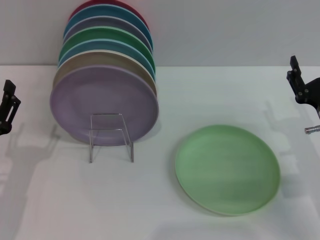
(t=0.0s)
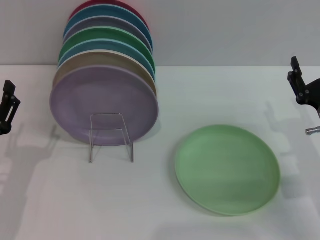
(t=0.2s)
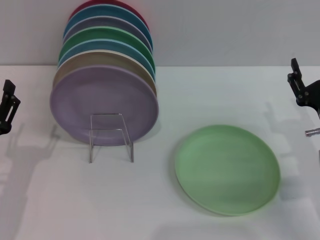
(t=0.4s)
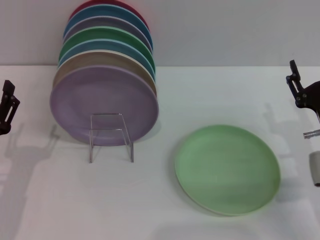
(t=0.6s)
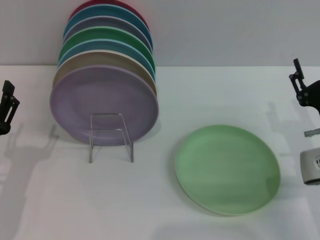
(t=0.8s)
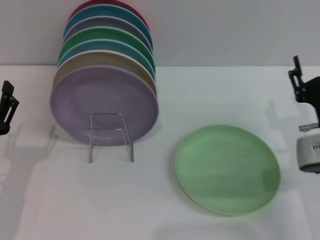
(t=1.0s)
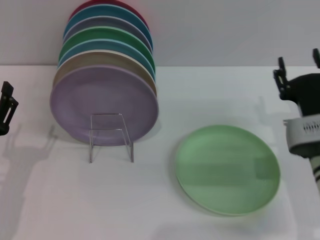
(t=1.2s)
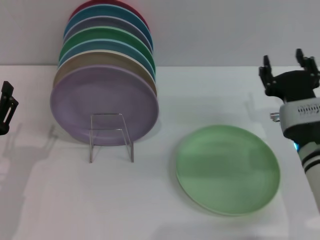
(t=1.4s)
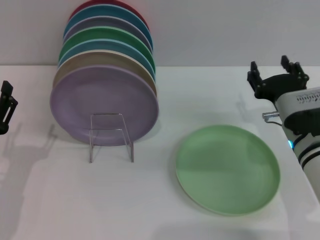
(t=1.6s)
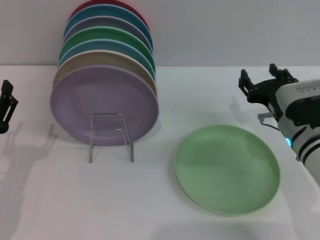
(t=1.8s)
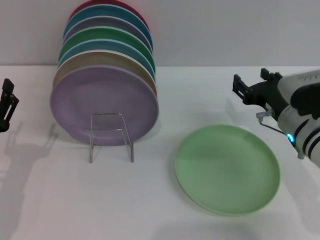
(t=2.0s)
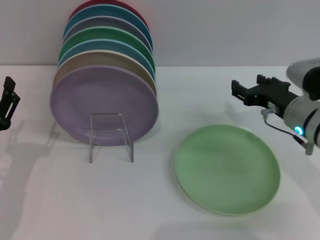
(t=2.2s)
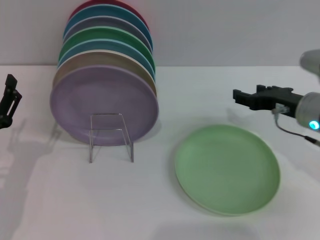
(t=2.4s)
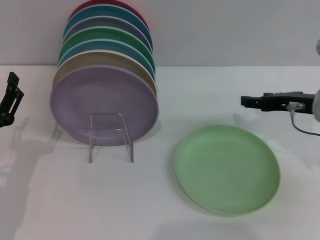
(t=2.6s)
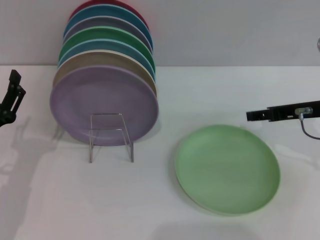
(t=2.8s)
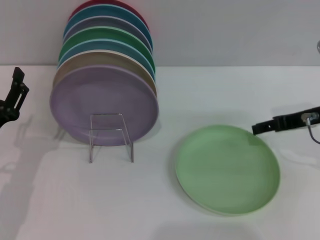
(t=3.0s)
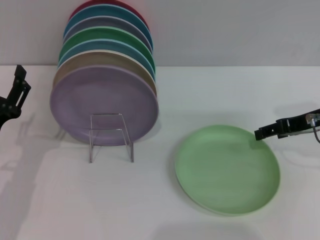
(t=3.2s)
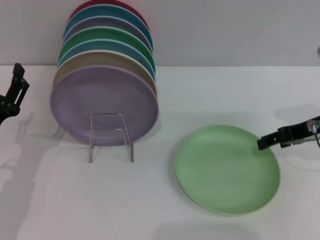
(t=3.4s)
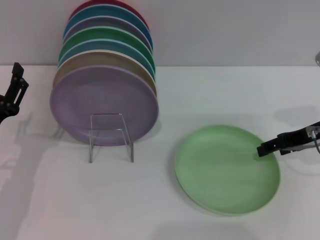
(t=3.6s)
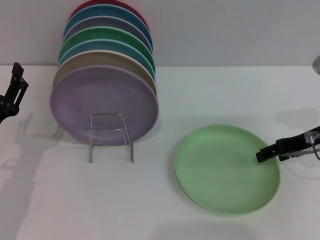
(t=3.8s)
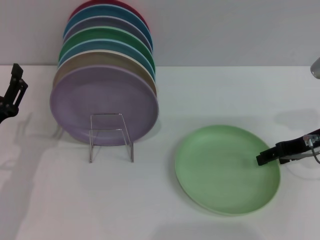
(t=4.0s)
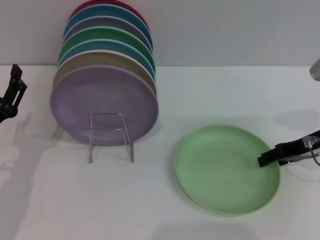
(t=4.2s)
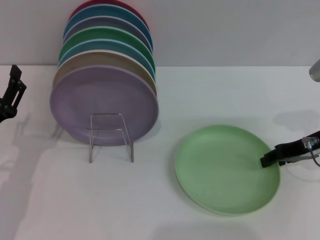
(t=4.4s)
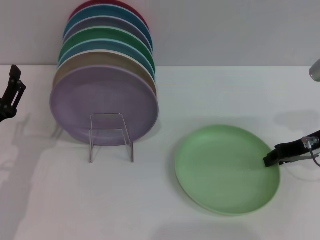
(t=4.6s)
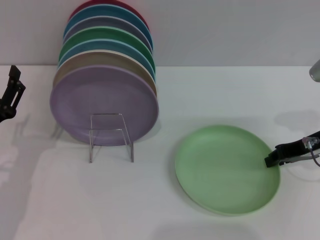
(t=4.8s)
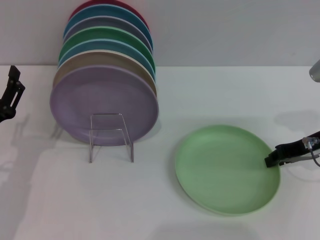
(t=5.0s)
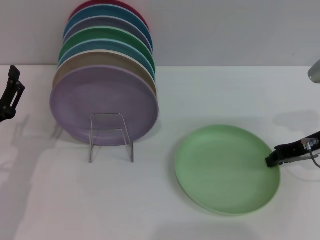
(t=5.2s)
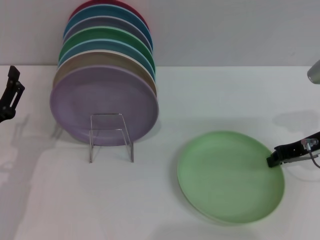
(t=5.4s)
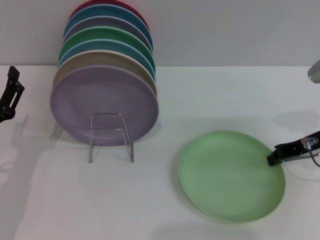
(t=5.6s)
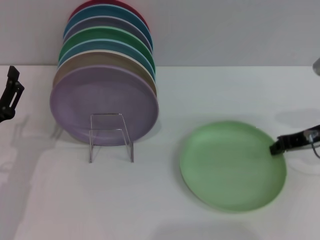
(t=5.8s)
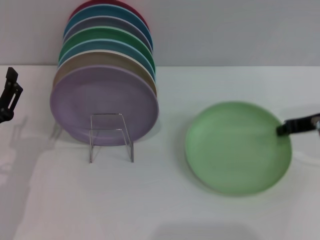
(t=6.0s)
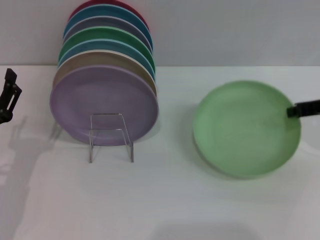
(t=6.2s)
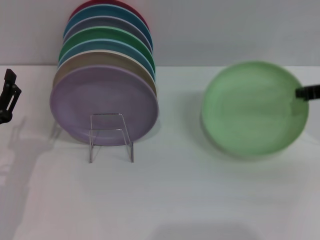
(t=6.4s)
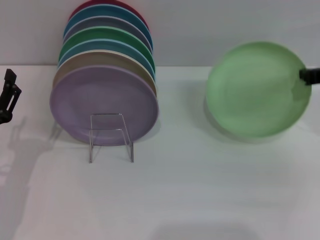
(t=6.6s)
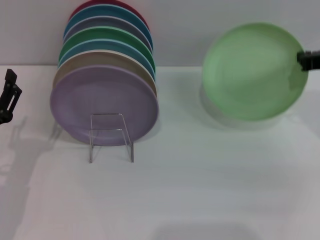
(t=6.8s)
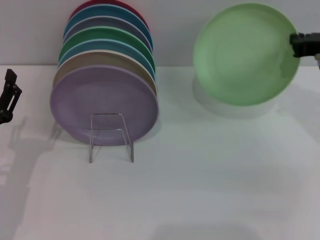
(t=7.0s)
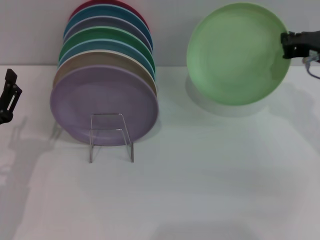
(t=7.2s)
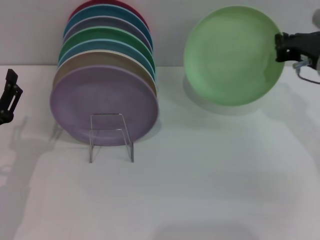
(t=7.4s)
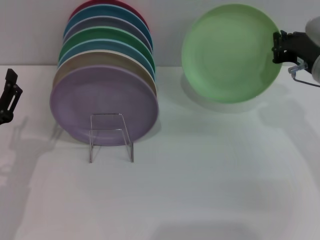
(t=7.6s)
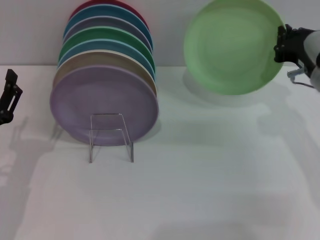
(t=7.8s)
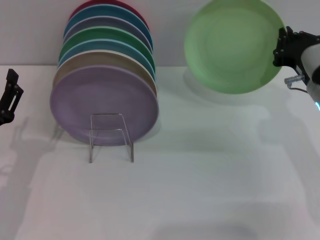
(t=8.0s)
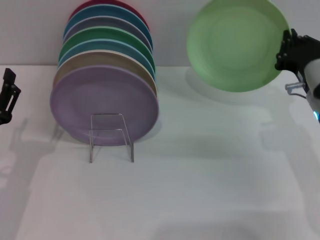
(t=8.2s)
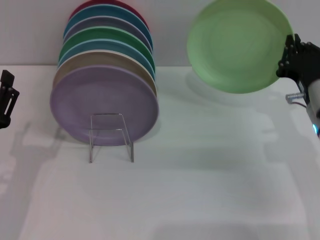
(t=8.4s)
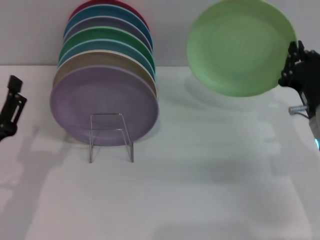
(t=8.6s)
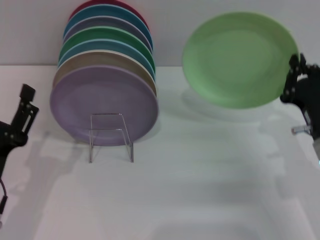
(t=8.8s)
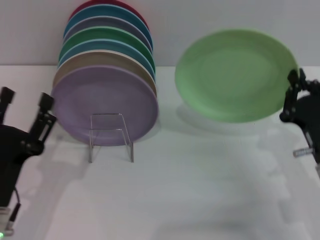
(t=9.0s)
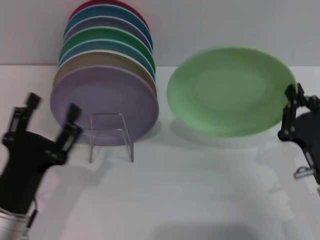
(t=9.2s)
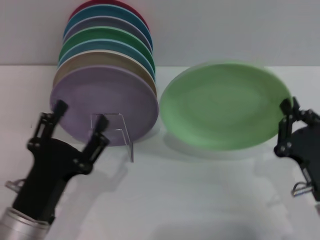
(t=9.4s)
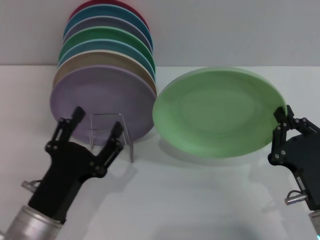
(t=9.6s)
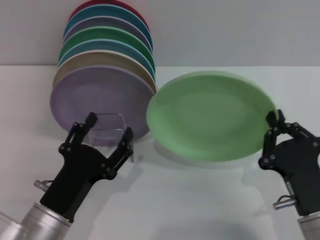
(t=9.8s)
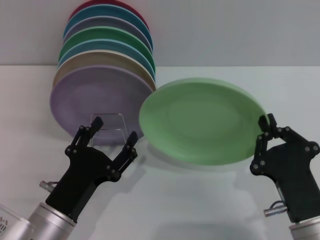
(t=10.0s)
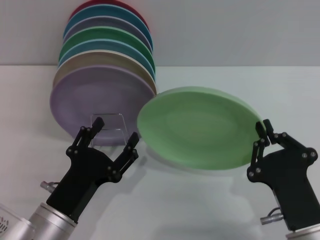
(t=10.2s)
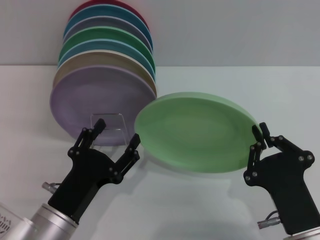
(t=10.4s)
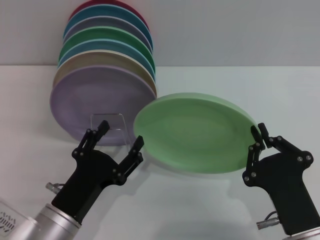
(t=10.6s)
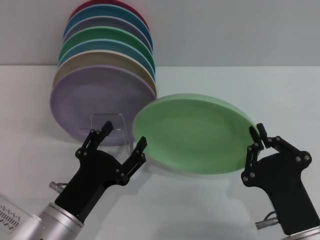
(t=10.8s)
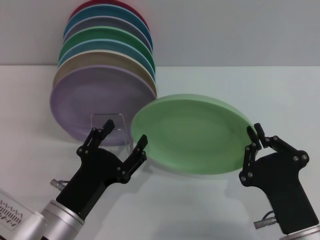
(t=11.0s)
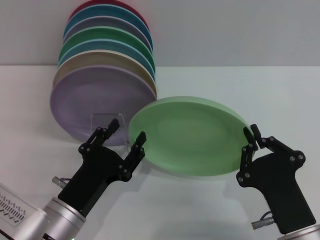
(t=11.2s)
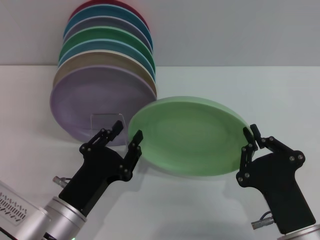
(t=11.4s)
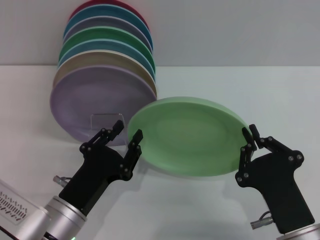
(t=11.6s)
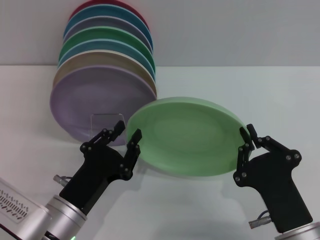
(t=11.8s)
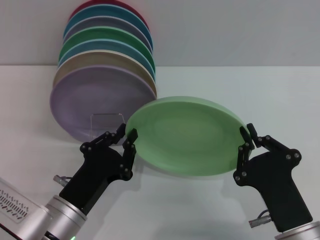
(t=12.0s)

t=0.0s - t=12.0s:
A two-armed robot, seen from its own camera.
Task of the whole recording: Grip the plate with one hand, pass it to the other, then set it on the shelf.
Step, t=0.0s - t=8.0s: Pick up the plate with the right gripper.
t=0.0s - t=1.6s: The right gripper moves to the left, roughly 5 cm.
t=1.6s - t=3.0s: The right gripper goes approximately 10 cm upward and to the right.
t=3.0s - t=4.4s: There are only small adjustments of the grippers.
t=4.4s - t=6.0s: The right gripper closes.
t=6.0s - t=7.6s: The right gripper changes place by about 5 cm.
t=7.6s - t=9.0s: The left gripper moves backward, some 5 cm. The right gripper moves backward and downward, approximately 15 cm.
t=9.0s - t=10.4s: The left gripper is displaced to the right by roughly 5 cm. The right gripper moves backward and to the left, roughly 10 cm.
t=10.4s - t=12.0s: The left gripper closes its fingers.

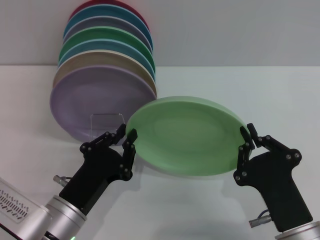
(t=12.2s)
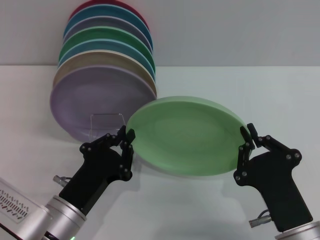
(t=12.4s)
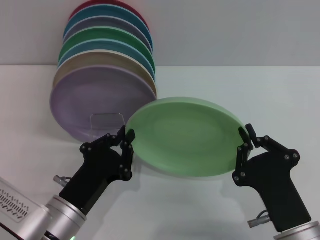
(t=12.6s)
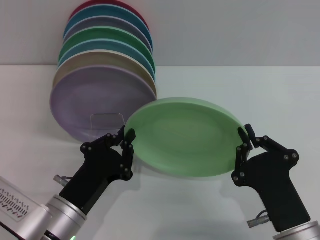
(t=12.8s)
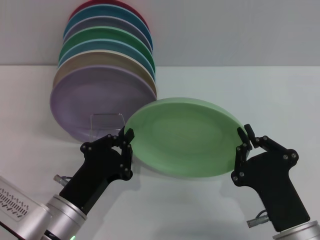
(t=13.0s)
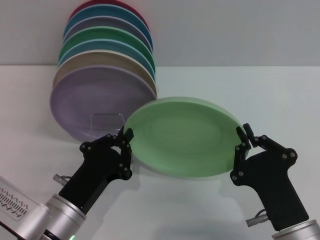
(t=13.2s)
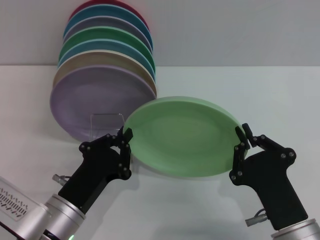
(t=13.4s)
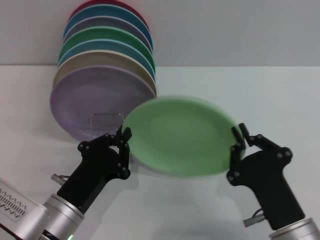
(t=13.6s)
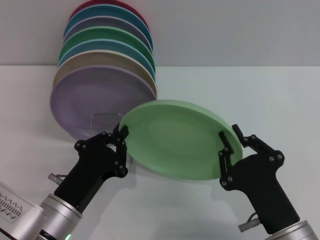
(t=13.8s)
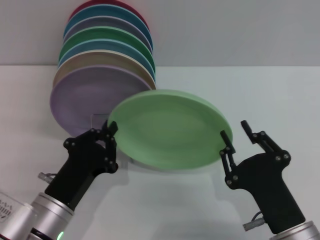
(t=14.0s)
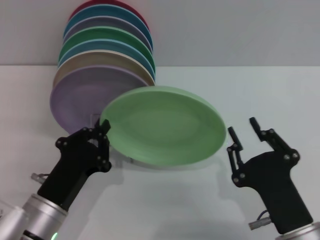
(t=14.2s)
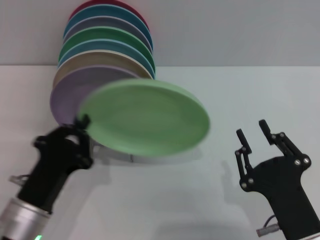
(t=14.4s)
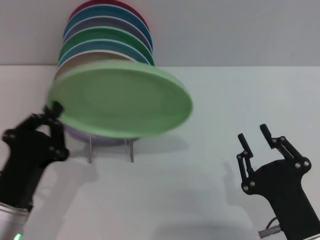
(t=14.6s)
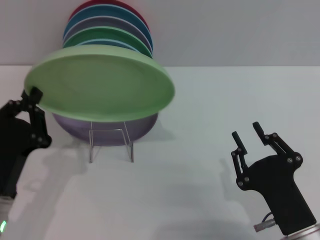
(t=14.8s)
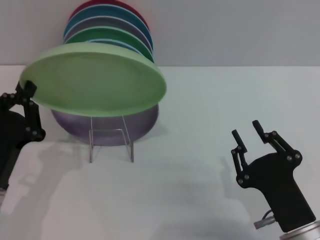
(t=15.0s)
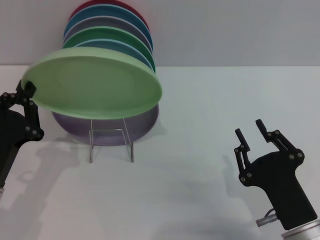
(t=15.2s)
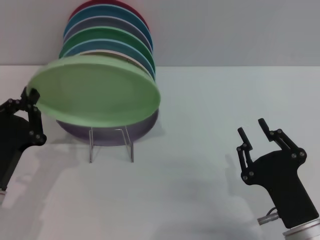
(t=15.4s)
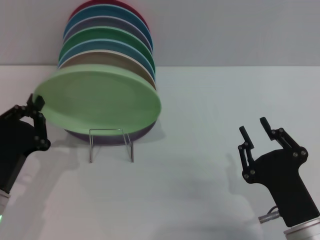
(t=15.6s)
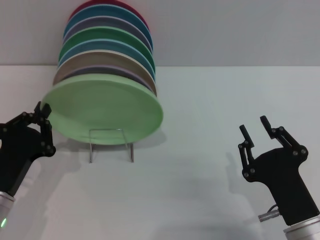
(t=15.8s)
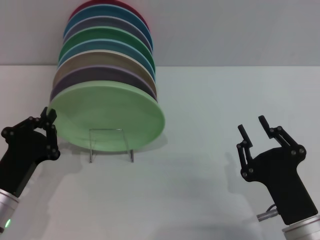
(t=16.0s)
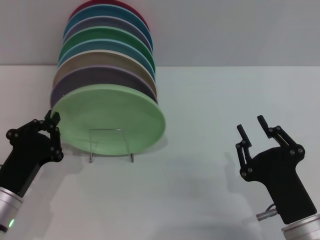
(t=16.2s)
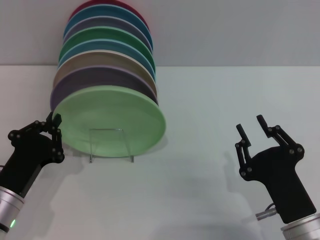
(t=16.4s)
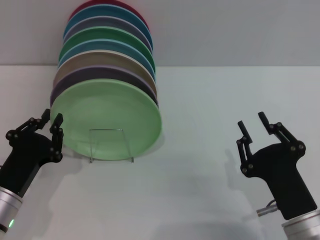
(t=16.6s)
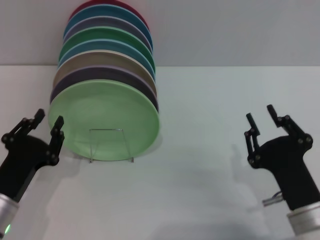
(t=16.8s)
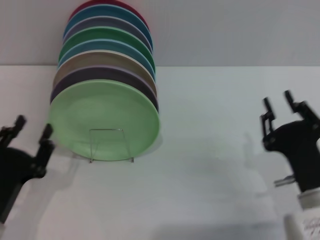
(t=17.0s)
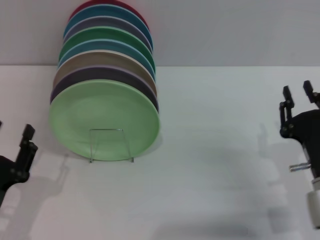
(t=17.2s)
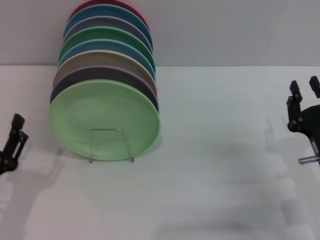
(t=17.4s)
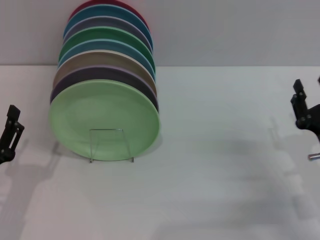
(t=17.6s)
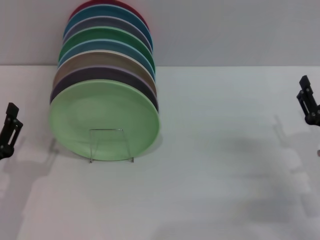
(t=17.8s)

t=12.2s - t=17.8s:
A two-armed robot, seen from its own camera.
Task of the whole recording: Grip the plate with one hand, pass it to the other, then set it on the shelf.
Step, t=12.2s - t=14.2s: Pass the plate from the right gripper to the left gripper.
Step, t=14.4s - t=16.8s: Place the plate on the shelf with the left gripper.
t=12.2s - t=13.6s: Both grippers stay put.
t=13.6s - t=15.0s: The left gripper goes some 10 cm to the left; the right gripper opens.
t=16.4s - t=17.8s: The left gripper opens its fingers. Meanwhile the right gripper goes roughly 15 cm to the right and forward.
